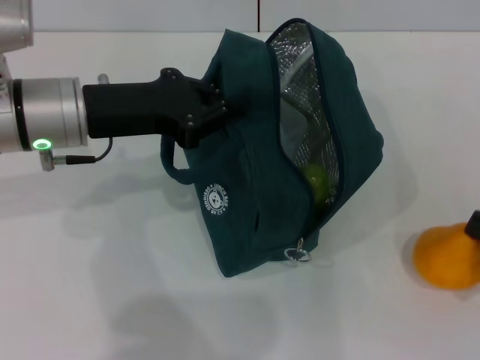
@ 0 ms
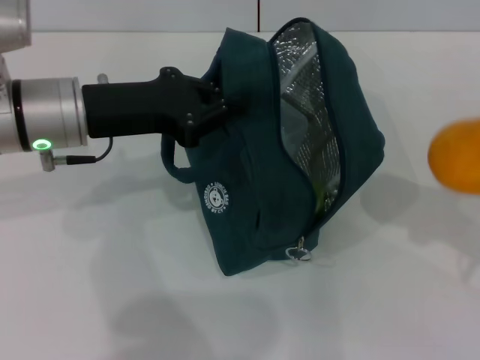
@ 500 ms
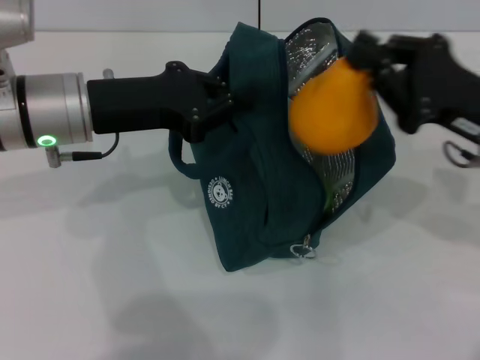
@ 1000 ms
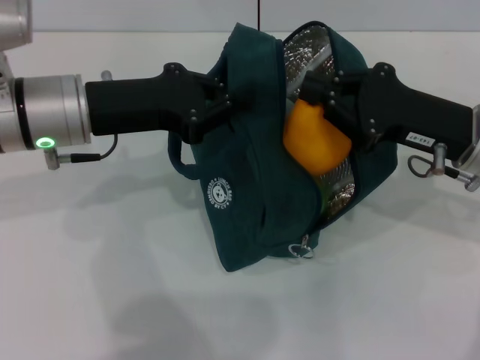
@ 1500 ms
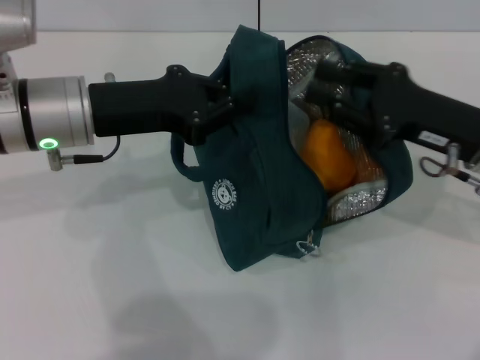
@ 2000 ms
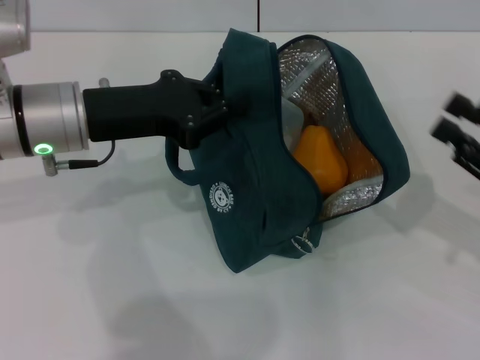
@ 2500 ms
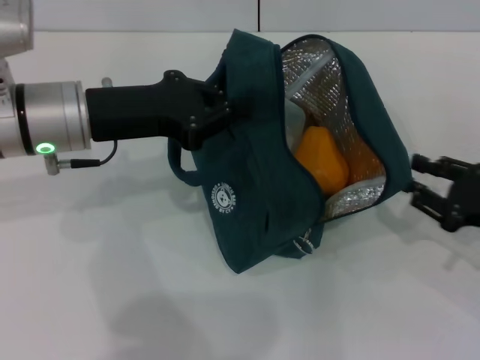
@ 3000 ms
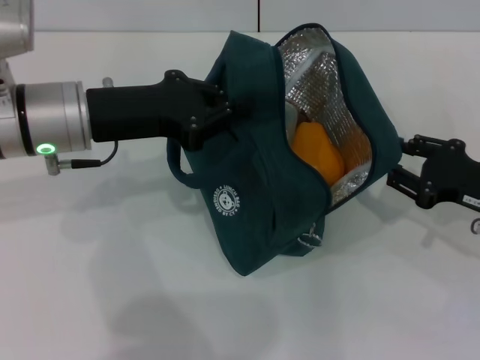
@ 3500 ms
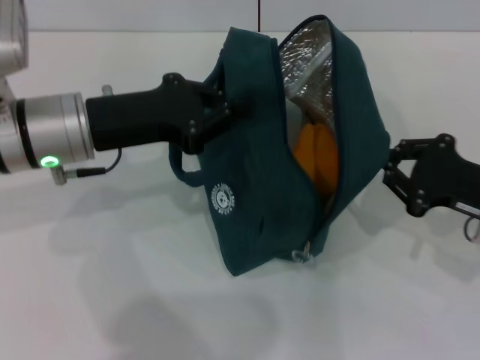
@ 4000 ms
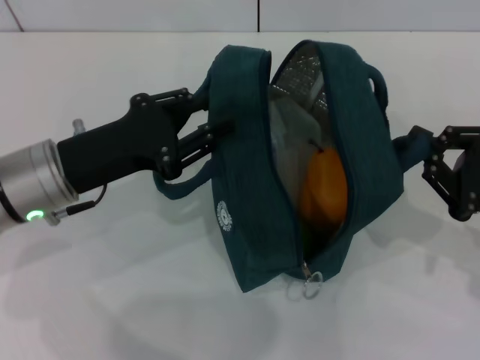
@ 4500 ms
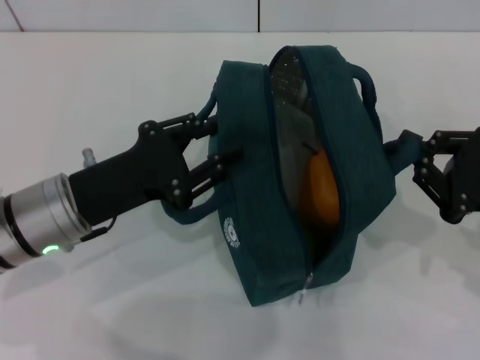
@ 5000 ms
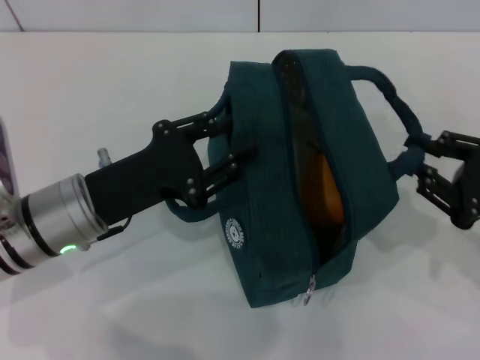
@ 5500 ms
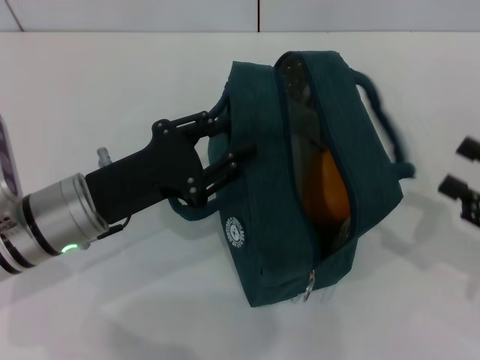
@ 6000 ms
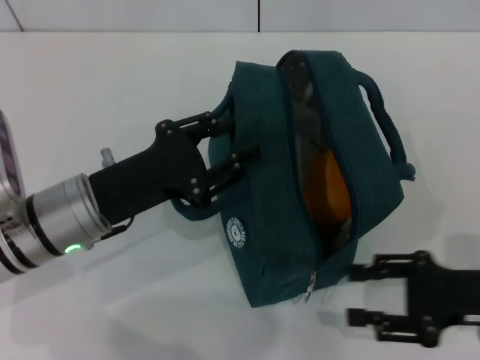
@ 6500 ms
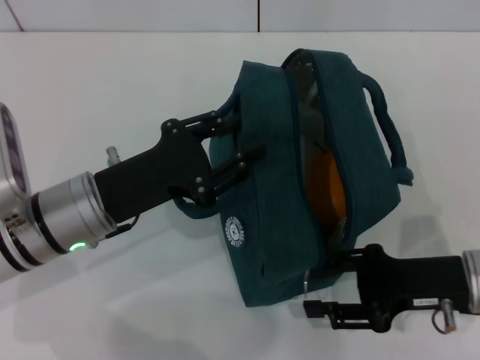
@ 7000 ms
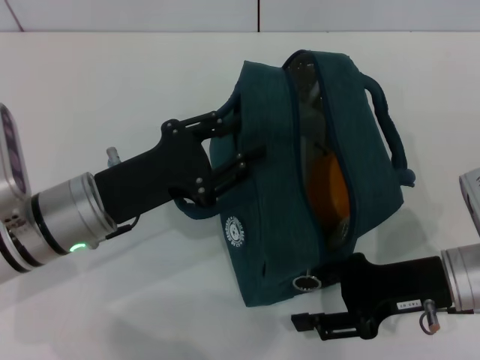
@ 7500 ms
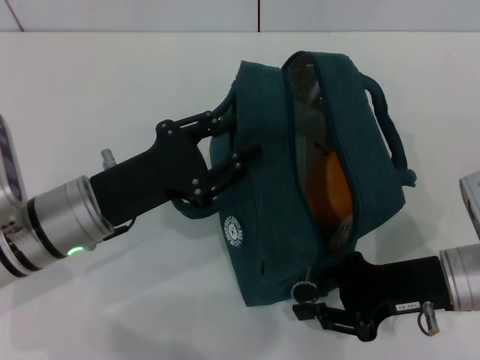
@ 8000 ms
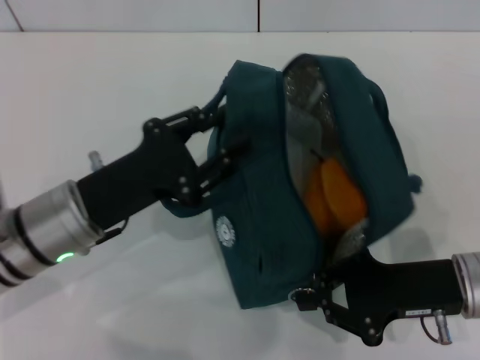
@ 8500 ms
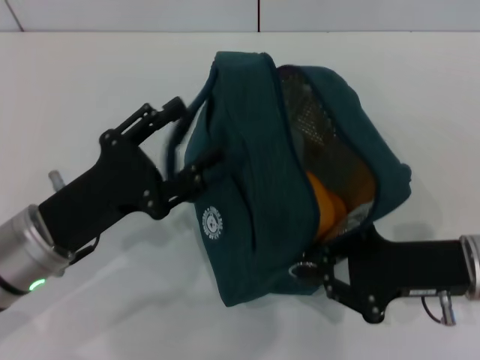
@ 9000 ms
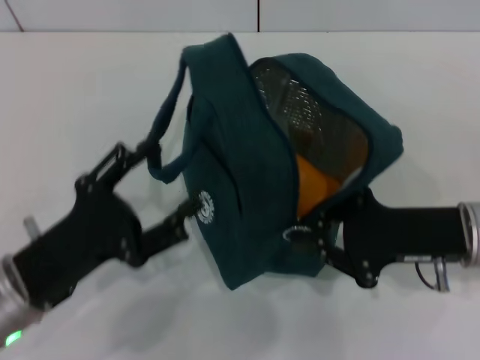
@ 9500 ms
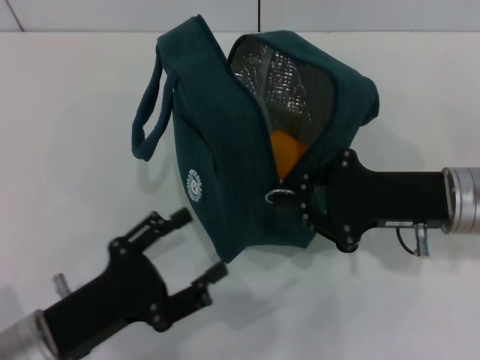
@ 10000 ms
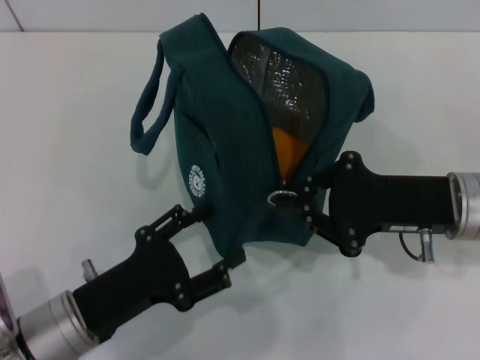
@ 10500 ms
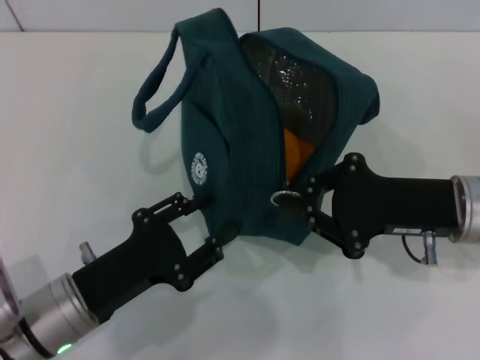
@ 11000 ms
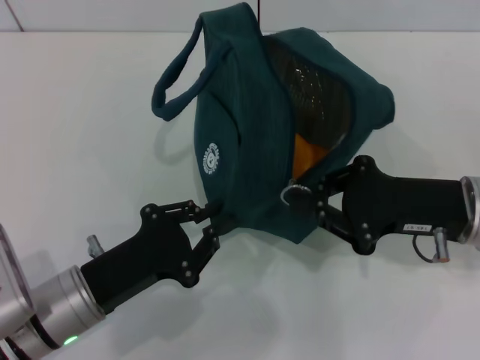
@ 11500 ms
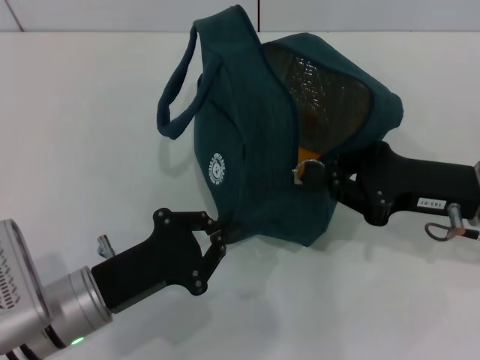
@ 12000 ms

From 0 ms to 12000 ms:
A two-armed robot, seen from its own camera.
Step, from 2500 ms to 5500 ms: Hold the lunch bag with your right hand.
From 0 ms to 2000 ms: The right gripper moves to the left, forward and upward, approximately 20 cm.
From 2000 ms to 4000 ms: The right gripper travels to the right by roughly 5 cm.
From 4000 ms to 6000 ms: The right gripper heads backward and to the right, covering some 10 cm, and opens; the left gripper travels downward and backward by about 10 cm.
From 6000 ms to 8000 ms: The right gripper goes approximately 10 cm to the left.
From 8000 ms to 10000 ms: The left gripper moves backward, approximately 10 cm, and opens its fingers. Meanwhile the right gripper is displaced upward by roughly 5 cm, and closes.
From 10000 ms to 12000 ms: The left gripper ends up approximately 5 cm from where it was, and closes up.

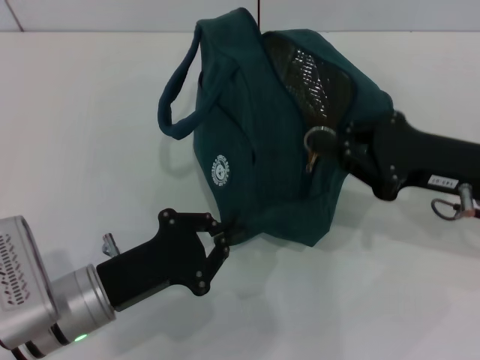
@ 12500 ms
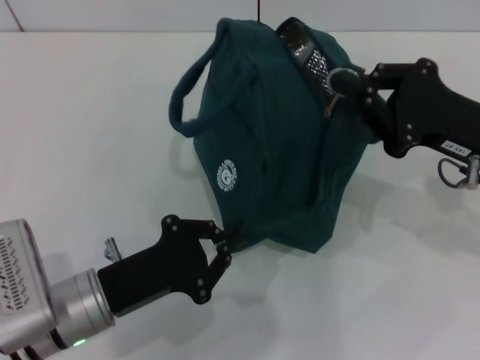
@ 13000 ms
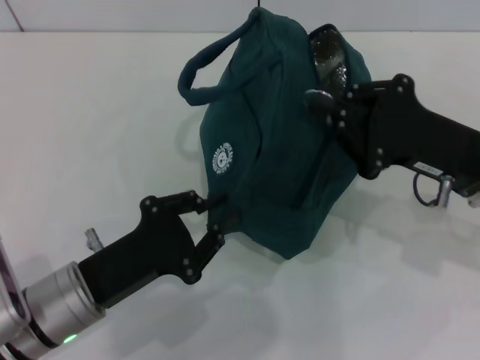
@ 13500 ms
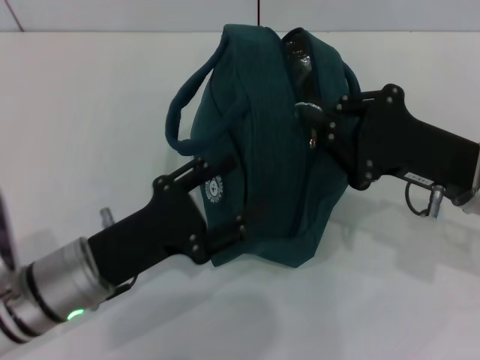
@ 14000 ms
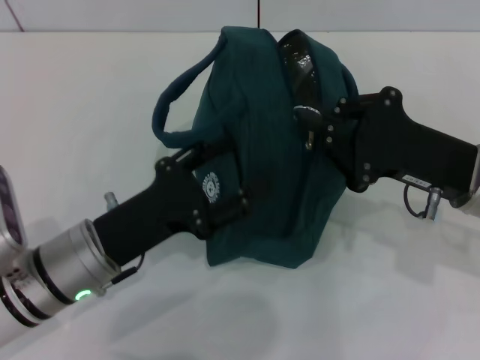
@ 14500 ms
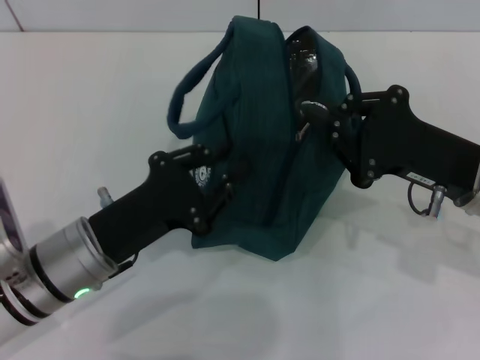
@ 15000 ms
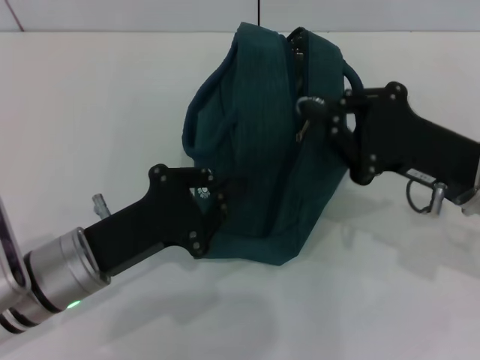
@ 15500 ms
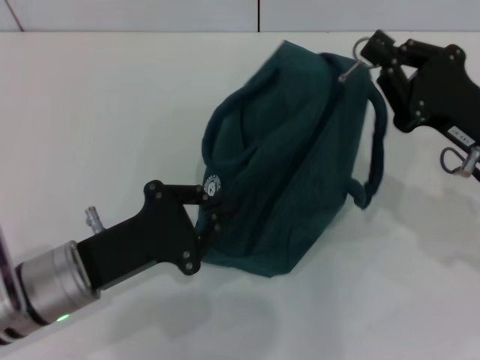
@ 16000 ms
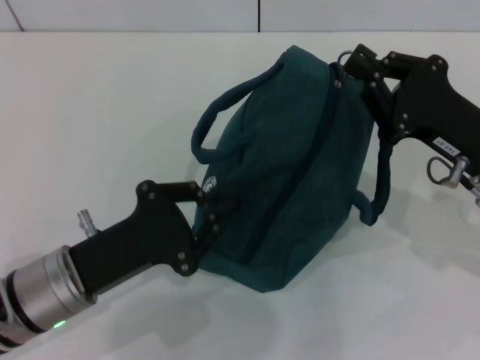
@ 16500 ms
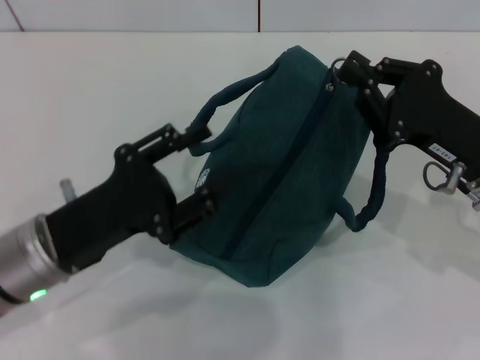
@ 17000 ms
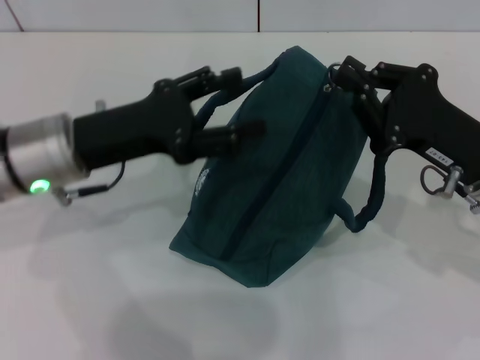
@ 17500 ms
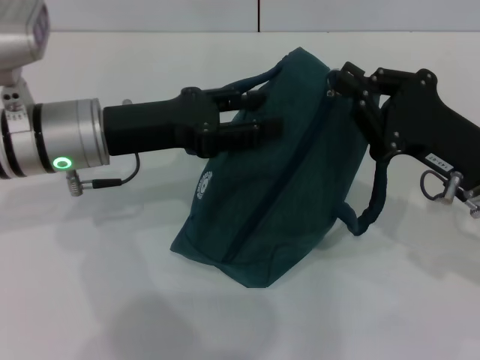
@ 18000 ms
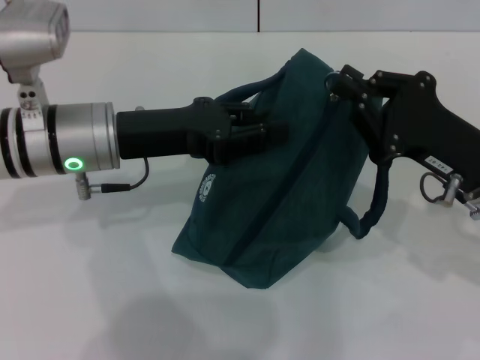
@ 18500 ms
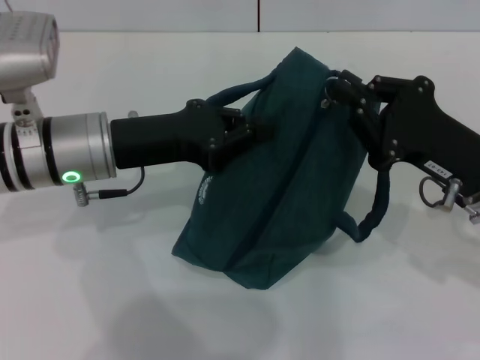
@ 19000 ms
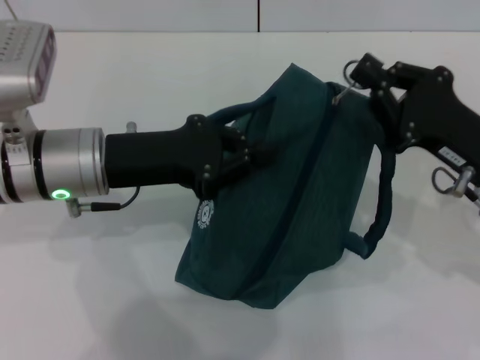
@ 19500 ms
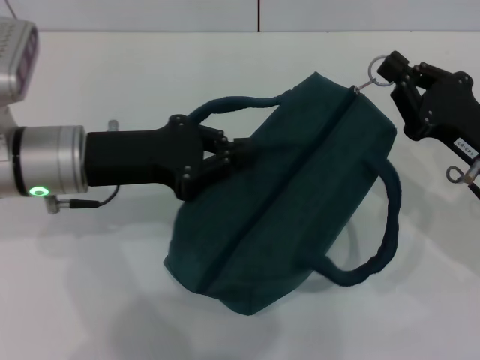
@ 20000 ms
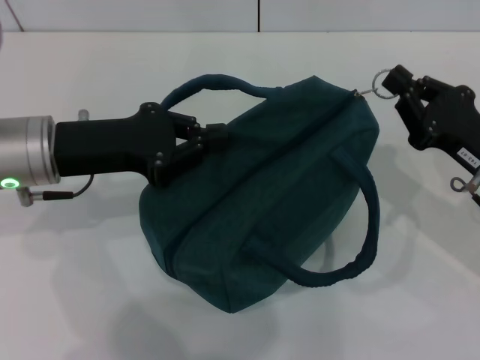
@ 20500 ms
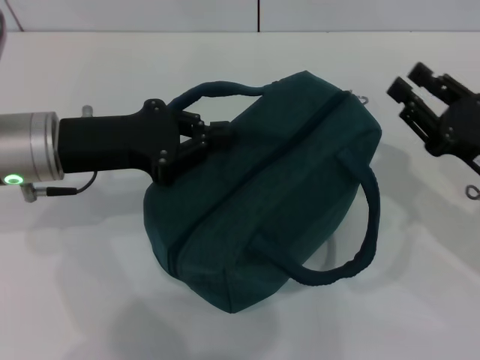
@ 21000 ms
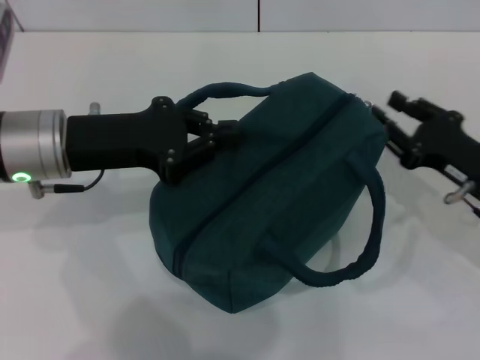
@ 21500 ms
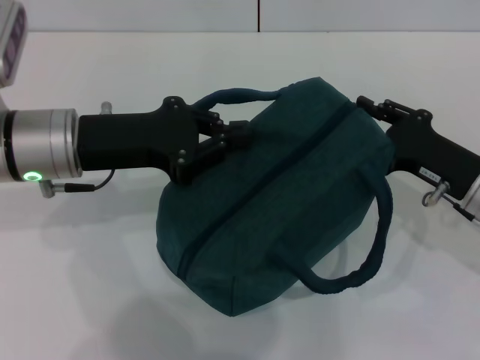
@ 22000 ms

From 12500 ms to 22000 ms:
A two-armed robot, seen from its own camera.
From 12500 ms to 14500 ms: The left gripper opens its fingers.
From 14500 ms to 16500 ms: The left gripper closes.
From 16500 ms to 18000 ms: The left gripper goes roughly 15 cm forward and upward, and opens.
From 18000 ms to 20000 ms: The left gripper closes up.
From 20000 ms to 22000 ms: The right gripper opens its fingers.

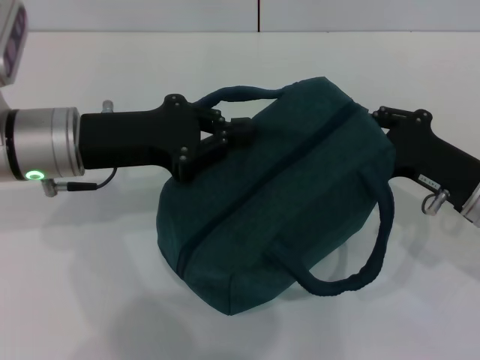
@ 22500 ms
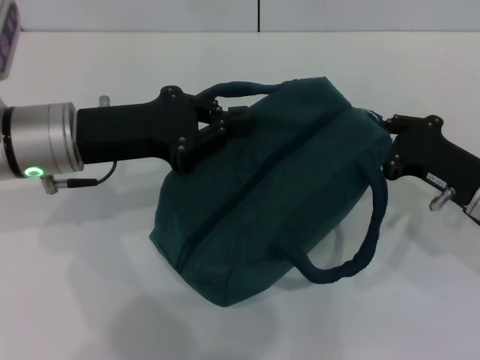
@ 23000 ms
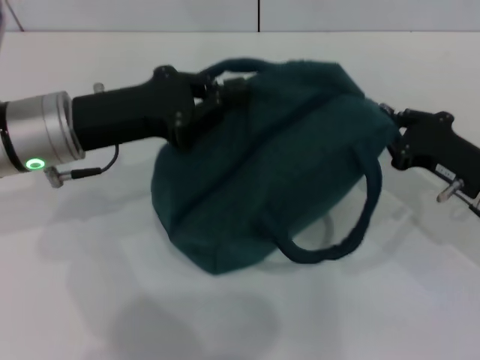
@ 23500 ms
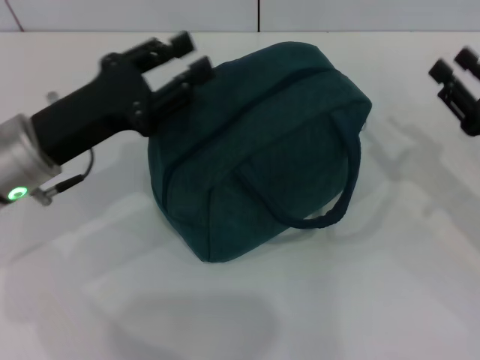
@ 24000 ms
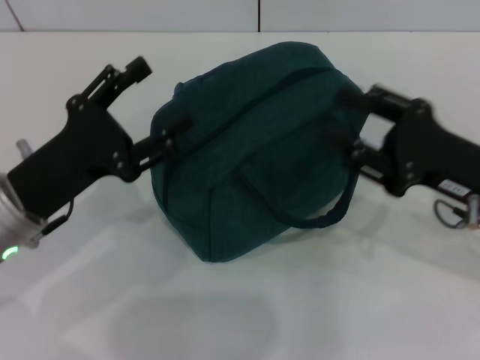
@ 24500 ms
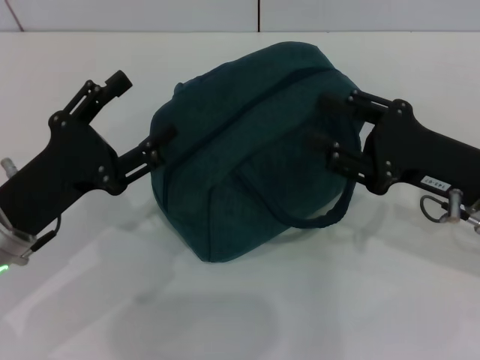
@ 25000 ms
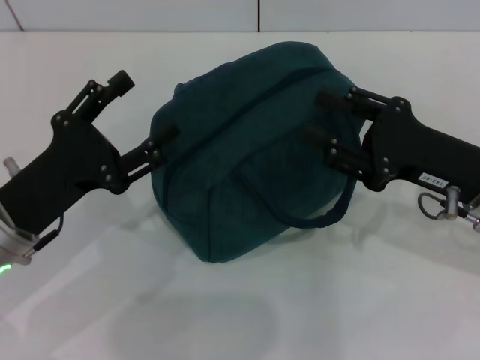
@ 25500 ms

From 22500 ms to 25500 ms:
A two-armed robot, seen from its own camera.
From 22500 ms to 24000 ms: The right gripper shifts approximately 5 cm to the right. Meanwhile the left gripper opens up.
From 24000 ms to 25500 ms: The left gripper moves backward, roughly 5 cm, and opens up. The right gripper travels to the left by roughly 5 cm.
